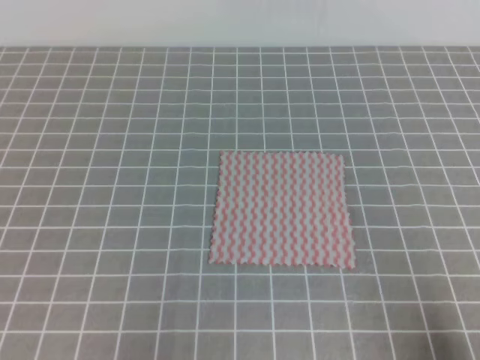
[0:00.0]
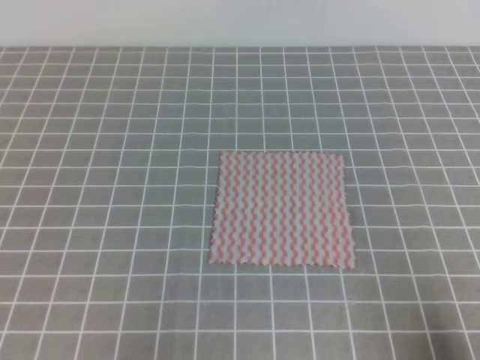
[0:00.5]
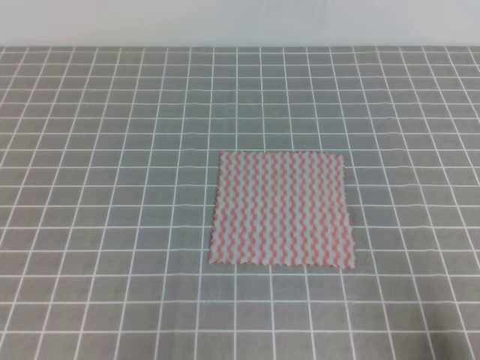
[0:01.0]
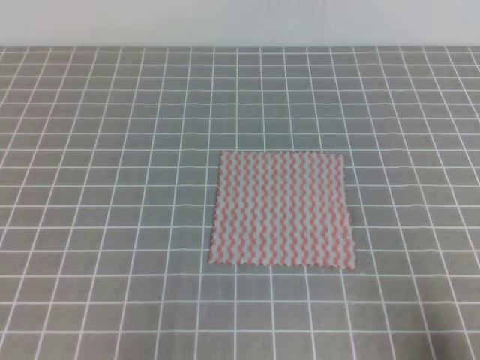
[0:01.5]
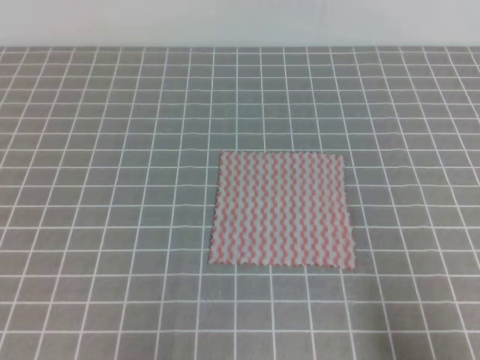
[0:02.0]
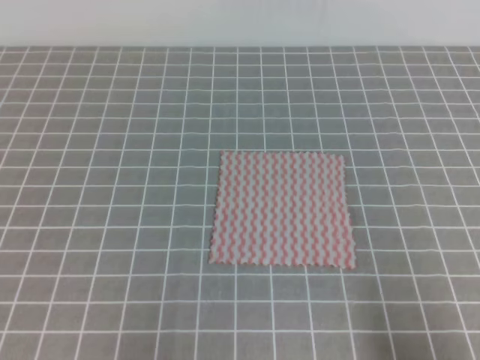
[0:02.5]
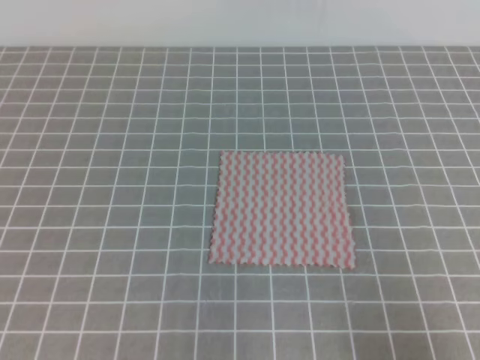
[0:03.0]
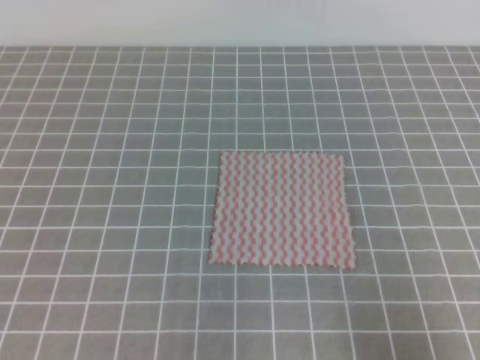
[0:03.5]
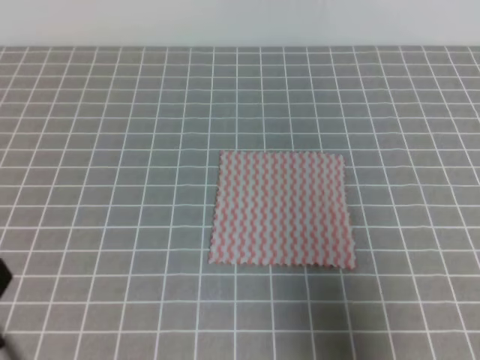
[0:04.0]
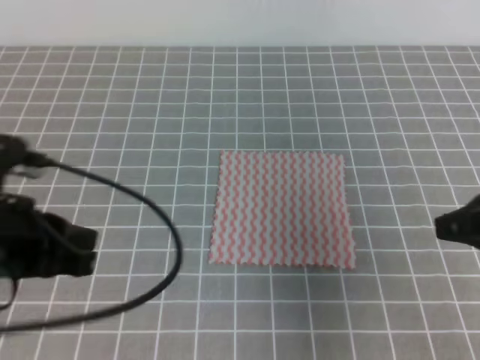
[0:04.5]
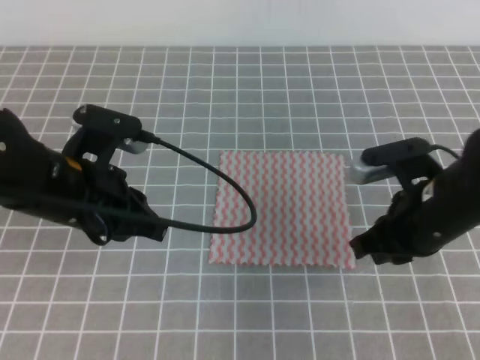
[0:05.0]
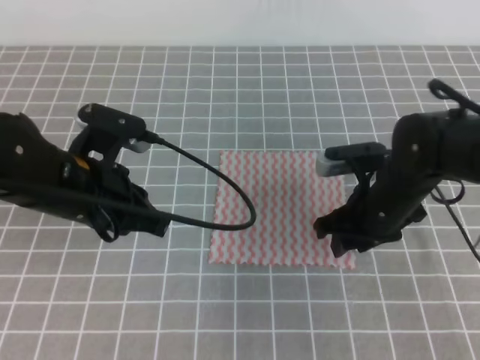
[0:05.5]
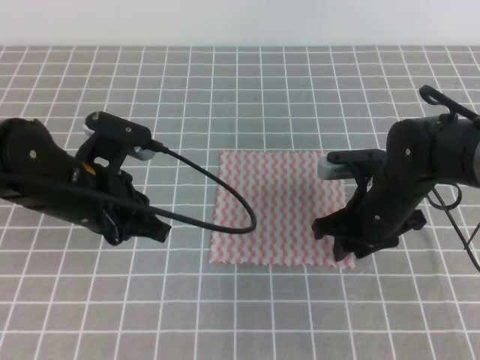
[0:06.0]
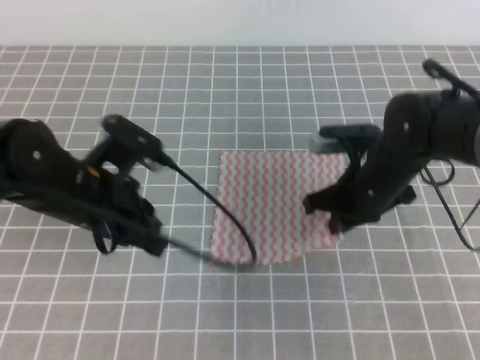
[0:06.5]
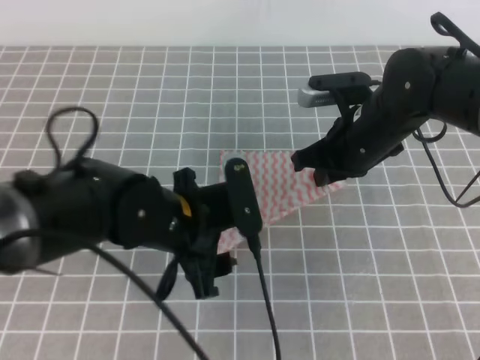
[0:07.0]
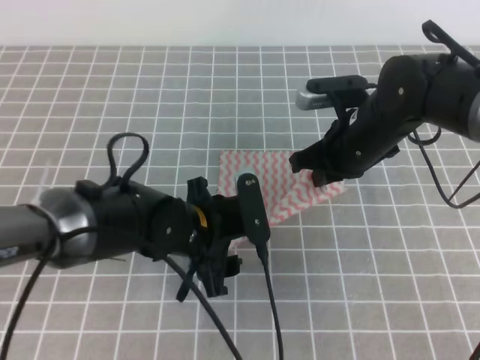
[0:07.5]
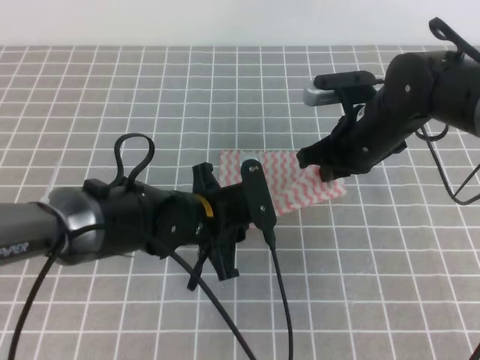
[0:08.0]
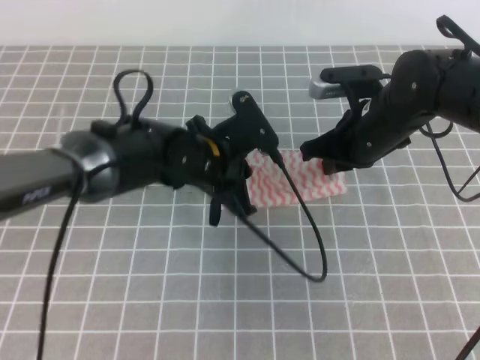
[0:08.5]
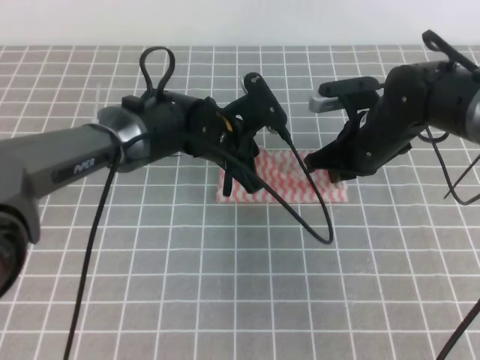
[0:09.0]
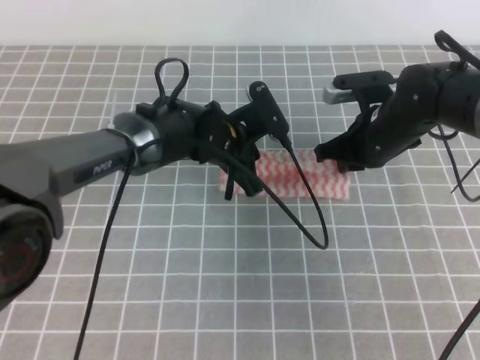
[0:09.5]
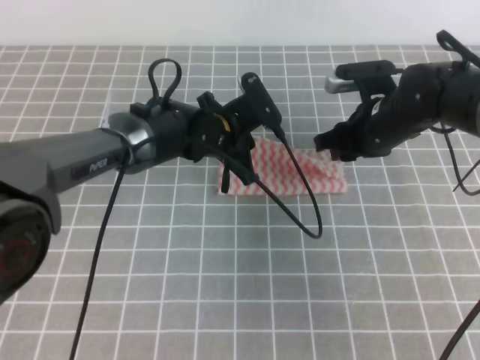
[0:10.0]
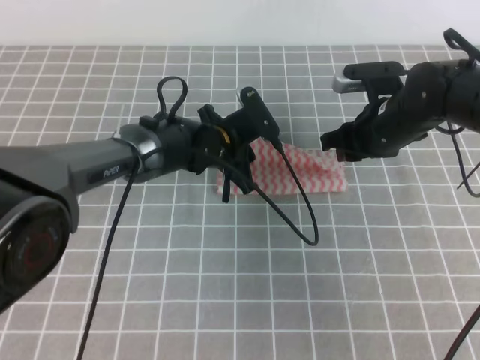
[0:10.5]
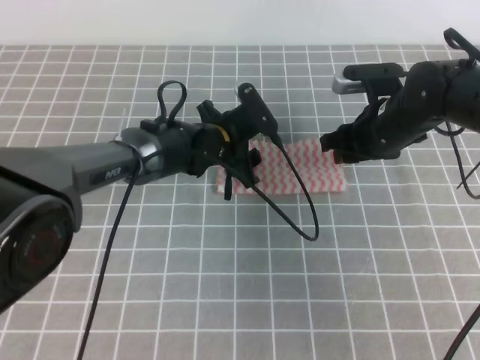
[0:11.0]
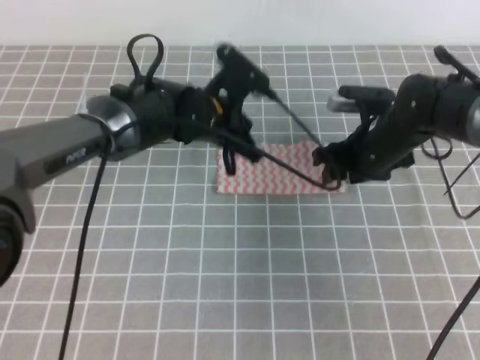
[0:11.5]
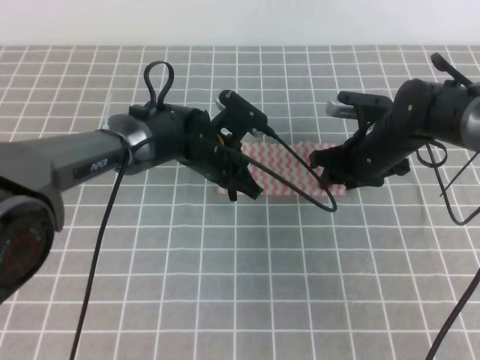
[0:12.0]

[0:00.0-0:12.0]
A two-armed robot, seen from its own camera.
0:02.0 to 0:04.0: The left gripper goes approximately 10 cm upward. Meanwhile the right gripper is displaced upward and forward by roughly 10 cm.
0:04.0 to 0:06.0: The left gripper travels forward and to the right by some 20 cm; the right gripper heads forward, to the left and downward, covering approximately 25 cm, and opens up.
0:06.0 to 0:08.0: The left gripper moves to the right and downward, some 10 cm, and opens; the right gripper shifts roughly 10 cm upward and forward, and closes.
0:08.0 to 0:10.0: The left gripper goes some 15 cm forward; the right gripper opens its fingers.
0:10.0 to 0:12.0: The left gripper opens, then closes again.

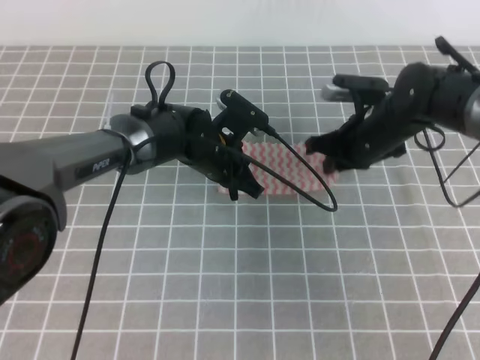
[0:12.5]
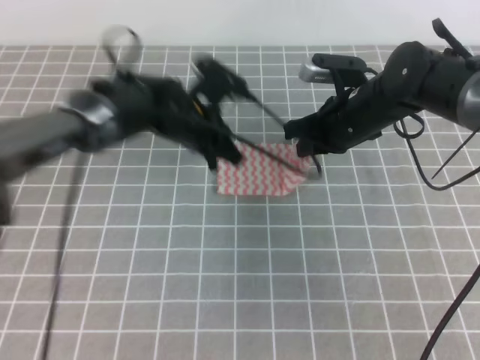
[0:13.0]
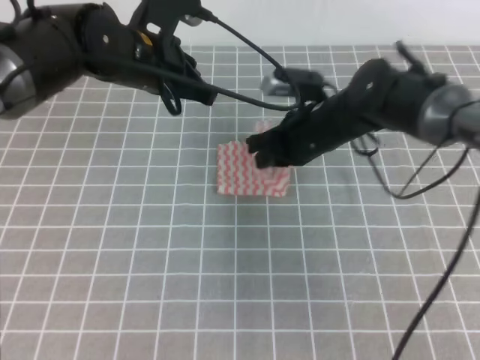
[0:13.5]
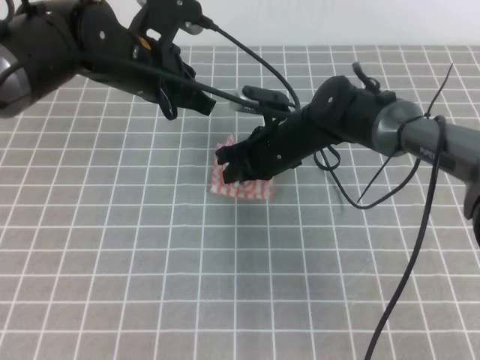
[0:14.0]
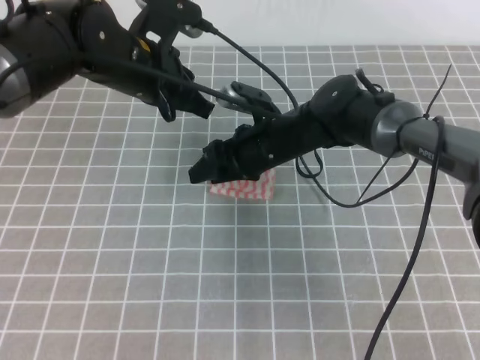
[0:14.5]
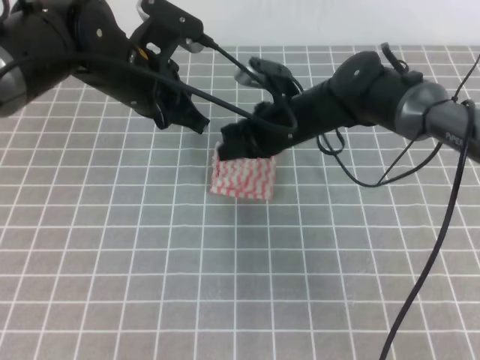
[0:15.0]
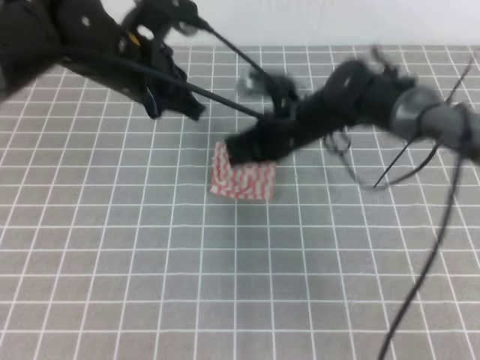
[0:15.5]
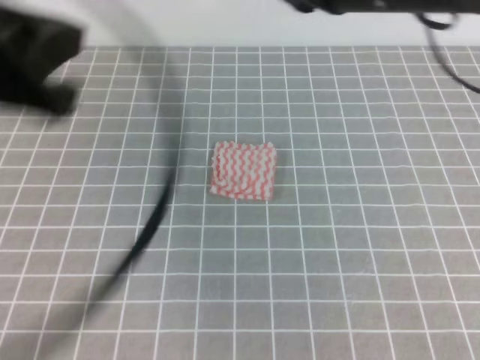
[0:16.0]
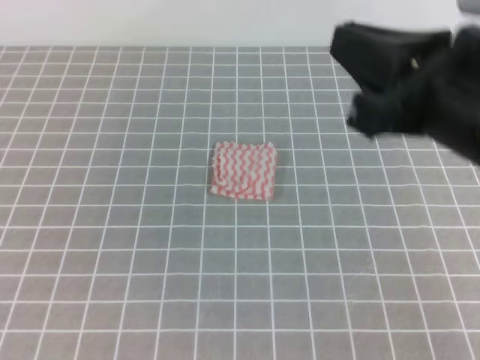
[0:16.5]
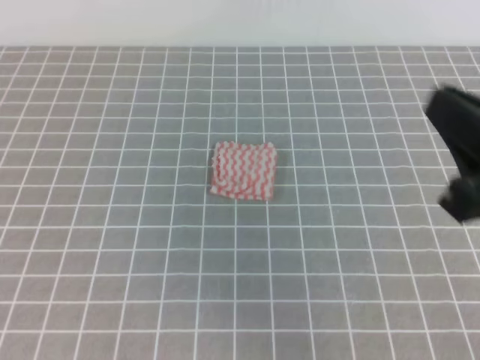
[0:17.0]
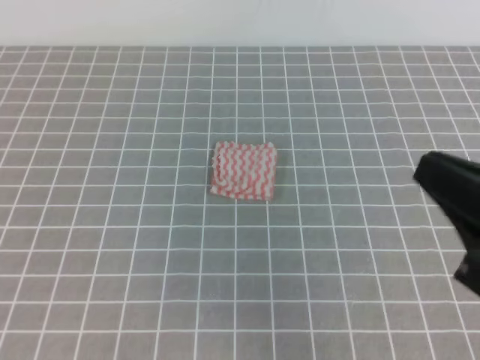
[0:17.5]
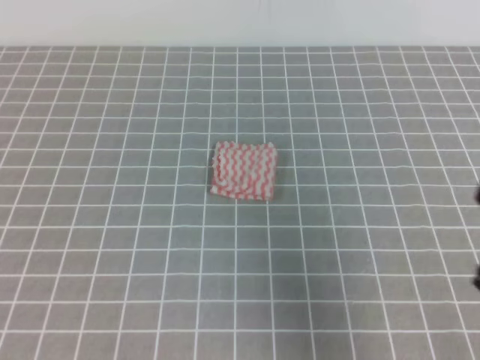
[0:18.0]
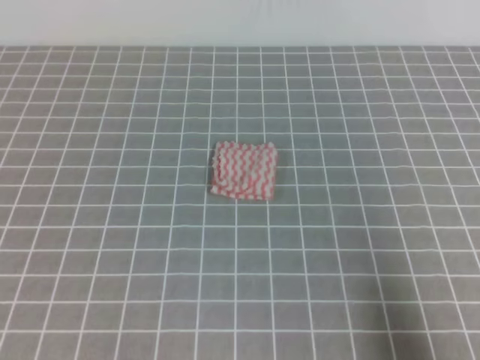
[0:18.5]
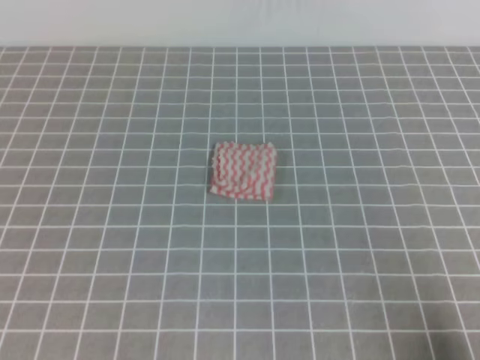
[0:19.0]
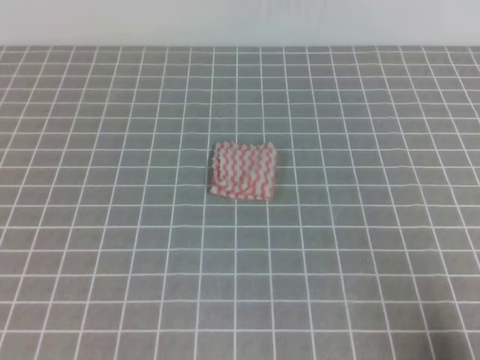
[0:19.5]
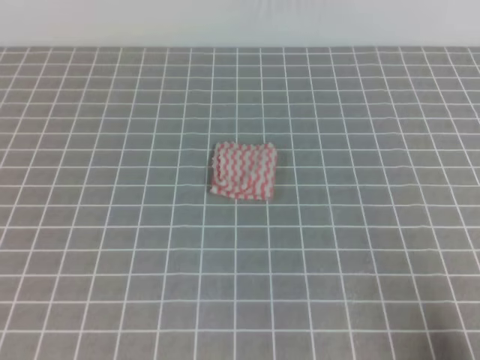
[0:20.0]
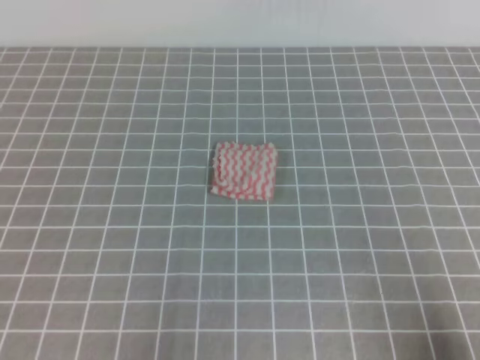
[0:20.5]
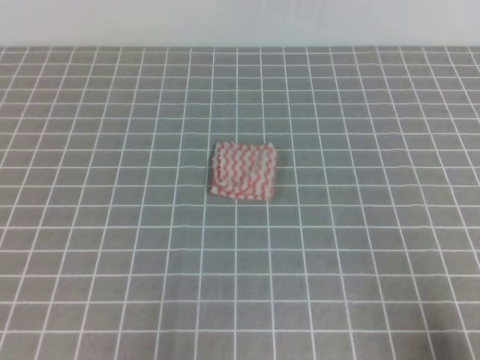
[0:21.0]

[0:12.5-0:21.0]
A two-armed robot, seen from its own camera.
Step, 0:12.5 to 0:21.0: Fold the towel.
0:12.5 to 0:14.5: The left gripper travels upward and to the left by roughly 15 cm. Meanwhile the right gripper is displaced to the left by some 10 cm, and opens its fingers.
0:14.5 to 0:16.5: The right gripper travels backward, upward and to the right by some 35 cm, and closes up; the left gripper is displaced backward and to the left by approximately 40 cm.
0:16.5 to 0:19.0: The right gripper goes some 30 cm downward, to the right and backward. Meanwhile the left gripper is displaced downward by some 5 cm.
